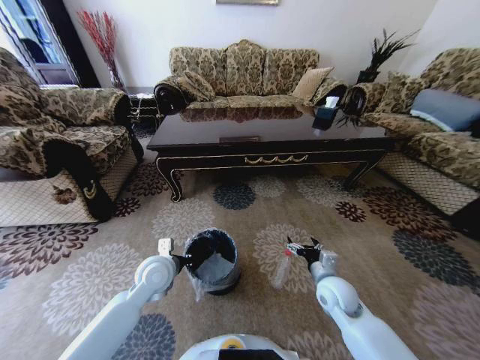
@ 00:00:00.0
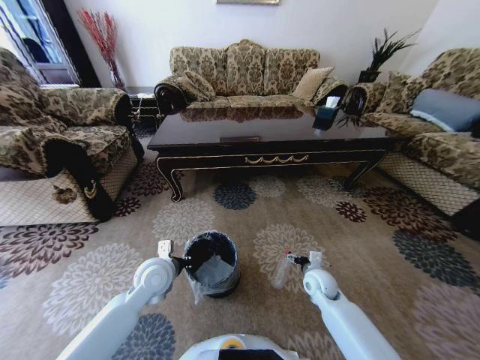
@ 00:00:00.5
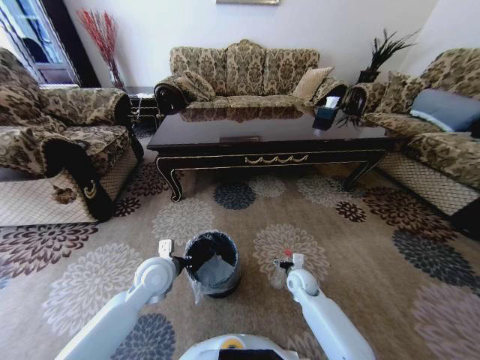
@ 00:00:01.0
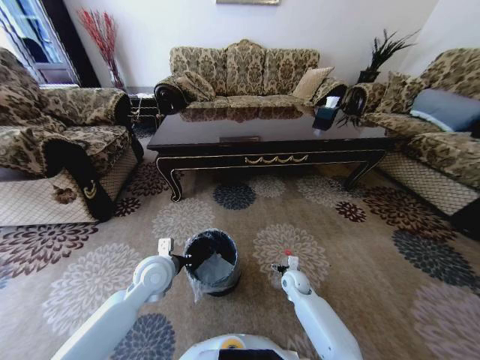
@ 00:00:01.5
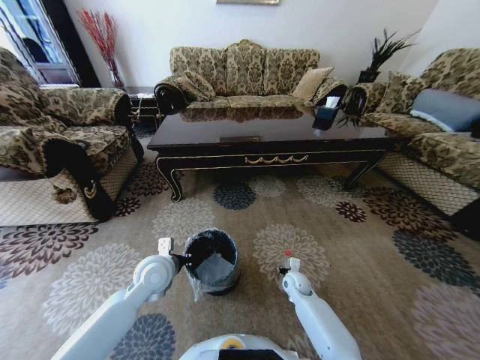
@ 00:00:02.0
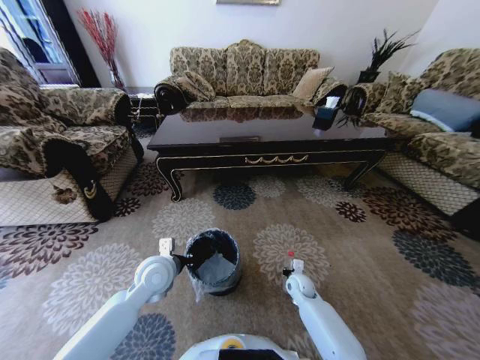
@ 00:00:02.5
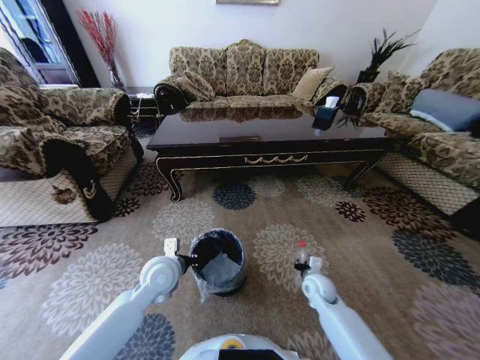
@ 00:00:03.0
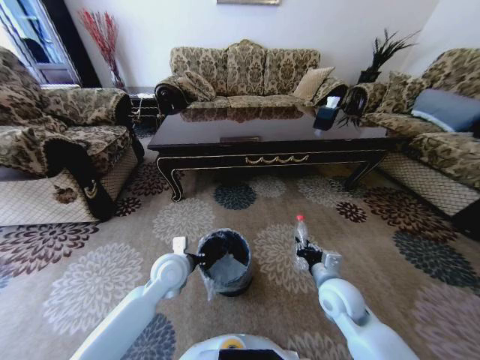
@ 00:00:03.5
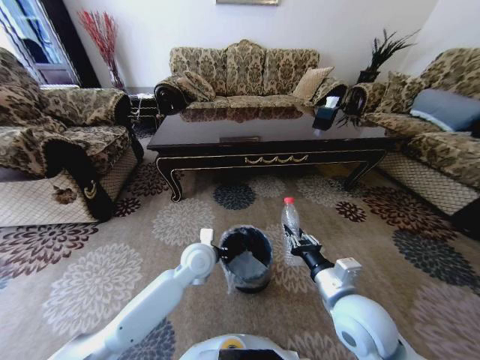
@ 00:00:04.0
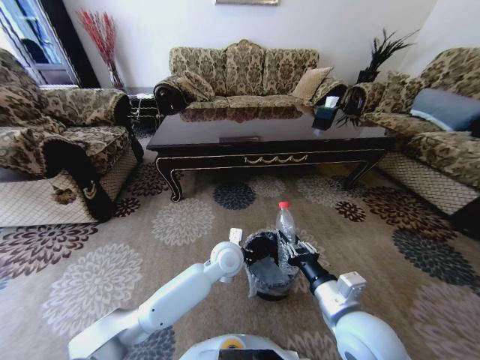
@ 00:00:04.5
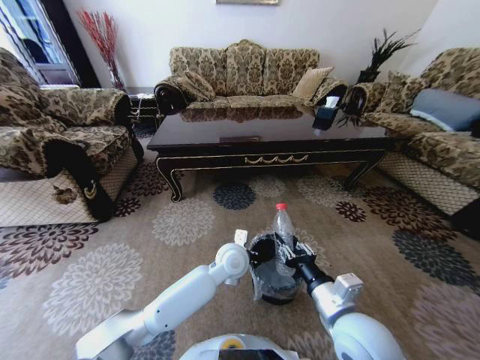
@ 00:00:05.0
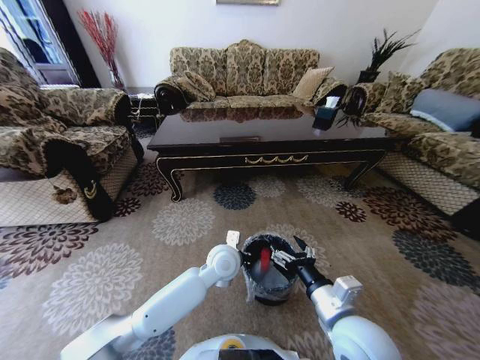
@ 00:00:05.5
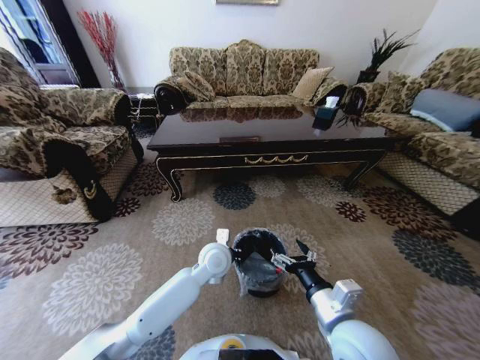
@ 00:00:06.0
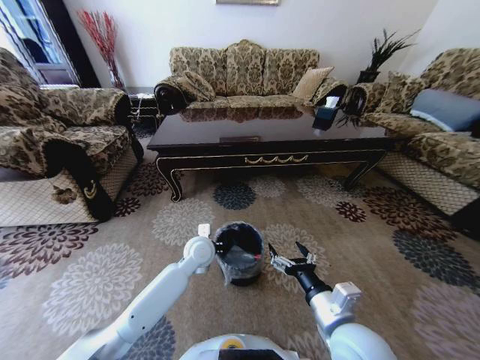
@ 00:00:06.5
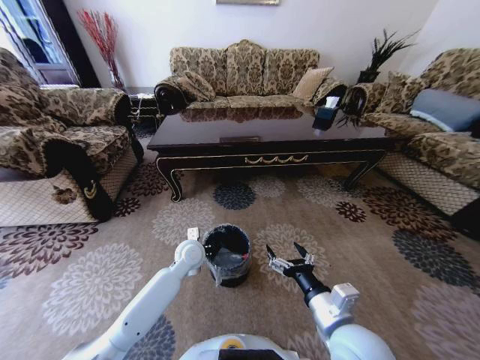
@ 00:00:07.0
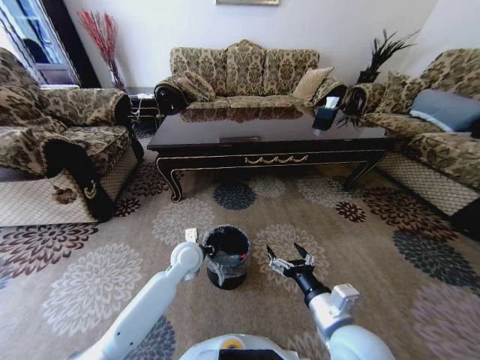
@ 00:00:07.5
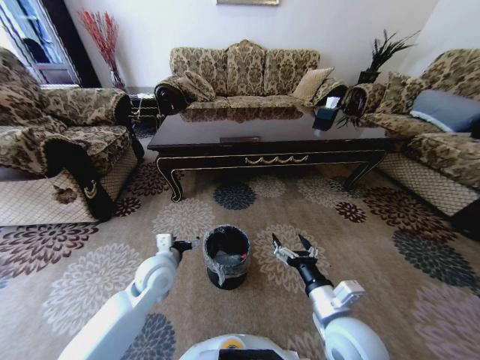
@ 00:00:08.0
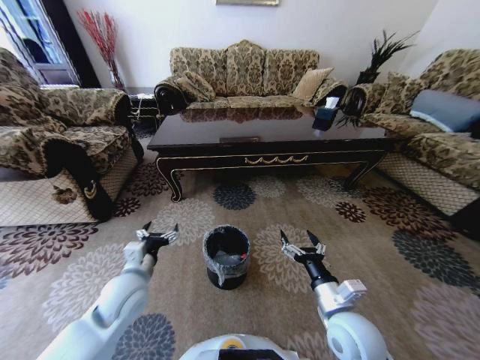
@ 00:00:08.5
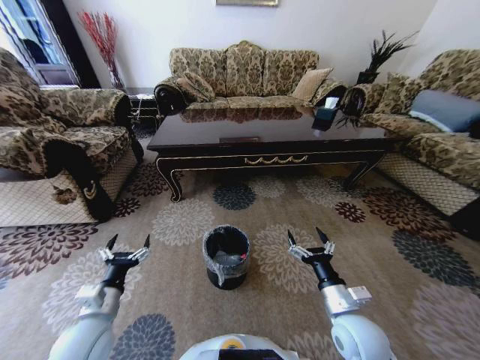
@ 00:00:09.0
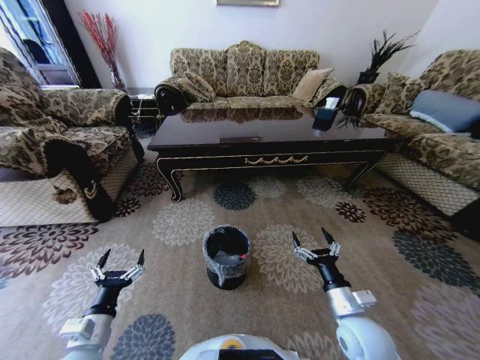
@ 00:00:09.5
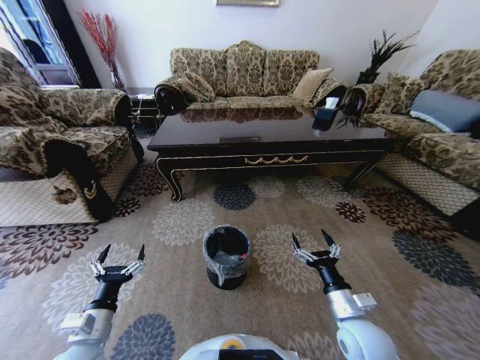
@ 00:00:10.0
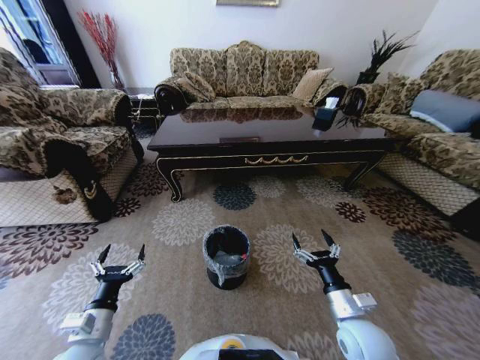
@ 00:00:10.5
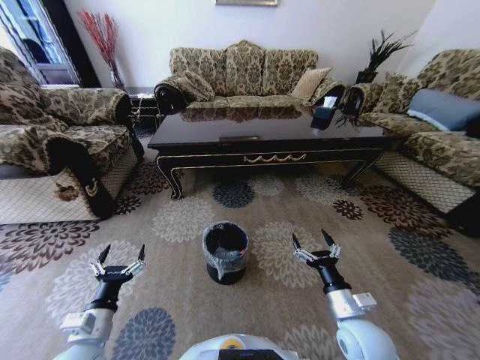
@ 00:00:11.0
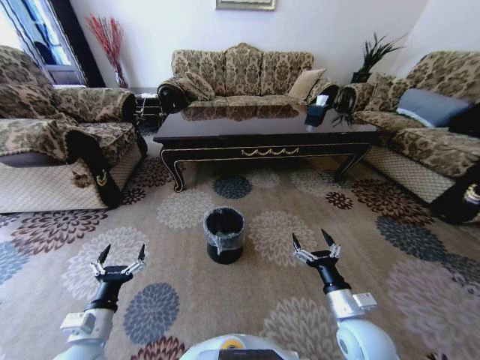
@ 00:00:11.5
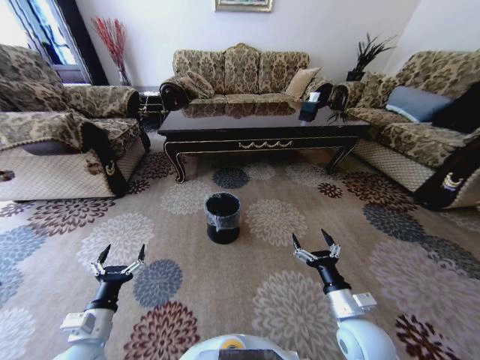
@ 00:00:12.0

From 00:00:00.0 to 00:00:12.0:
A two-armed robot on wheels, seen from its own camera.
Task of the whole recording: Move to the front of the table and pick up the trash from the floor, then place it into the trash bin.
From 00:00:00.0 to 00:00:02.0: The right gripper is displaced downward and forward by about 15 cm, and closes.
From 00:00:02.0 to 00:00:04.0: The left gripper moves to the right, roughly 10 cm; the right gripper moves upward and backward, some 30 cm, and closes its fingers.
From 00:00:04.0 to 00:00:06.0: The right gripper opens up.
From 00:00:06.0 to 00:00:08.0: The left gripper goes roughly 15 cm to the left, and opens its fingers.
From 00:00:08.0 to 00:00:10.0: The right gripper is displaced to the right and downward by approximately 10 cm. The left gripper moves backward and to the left, about 20 cm.
